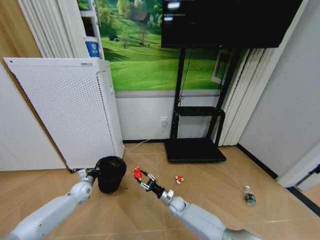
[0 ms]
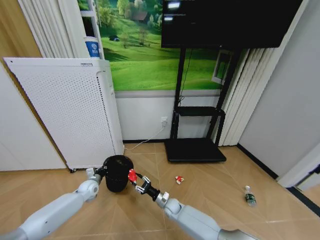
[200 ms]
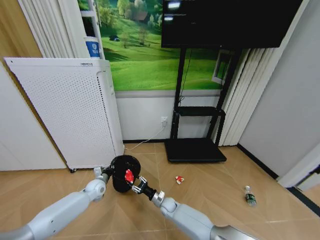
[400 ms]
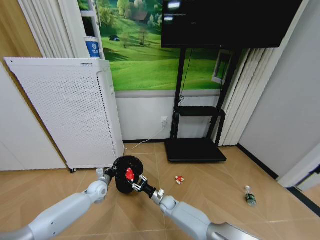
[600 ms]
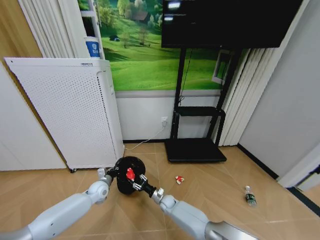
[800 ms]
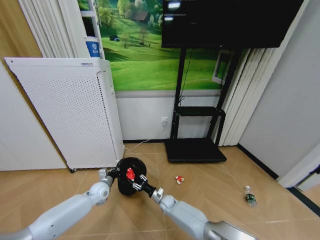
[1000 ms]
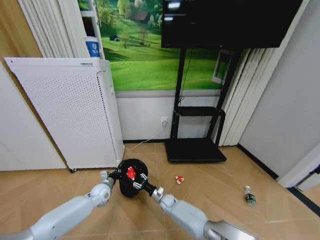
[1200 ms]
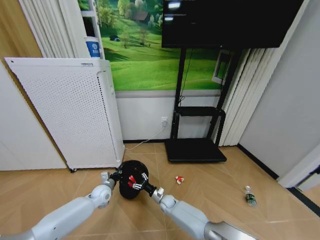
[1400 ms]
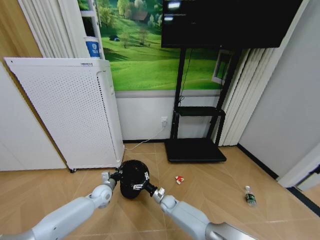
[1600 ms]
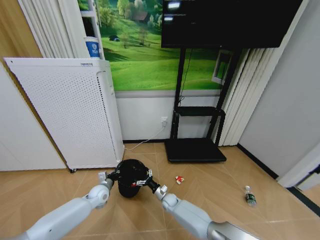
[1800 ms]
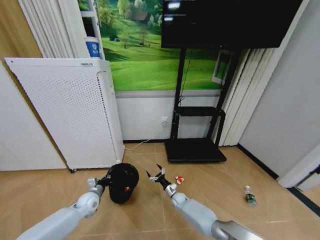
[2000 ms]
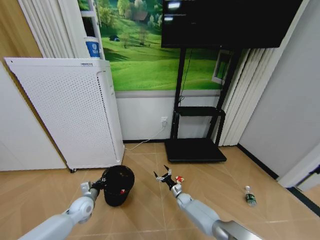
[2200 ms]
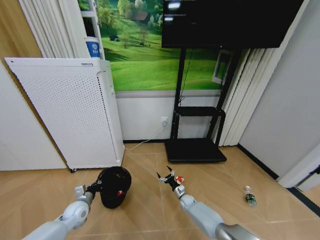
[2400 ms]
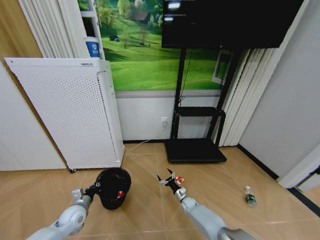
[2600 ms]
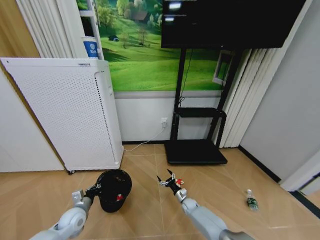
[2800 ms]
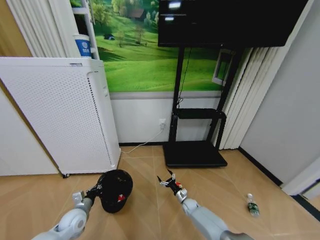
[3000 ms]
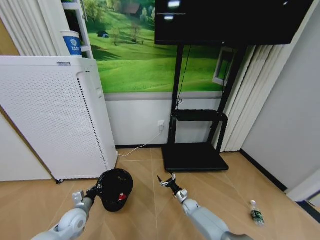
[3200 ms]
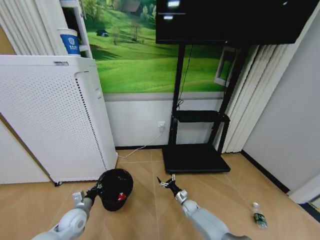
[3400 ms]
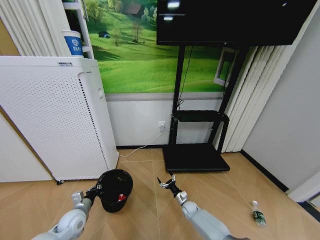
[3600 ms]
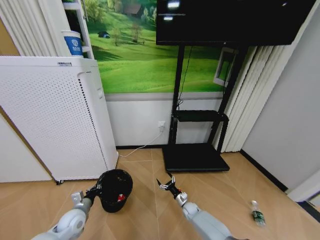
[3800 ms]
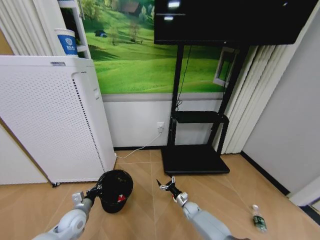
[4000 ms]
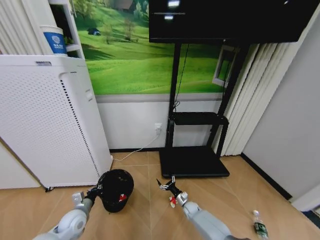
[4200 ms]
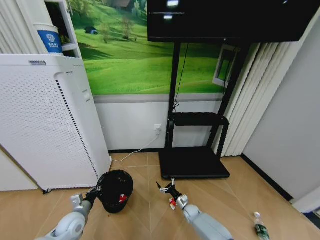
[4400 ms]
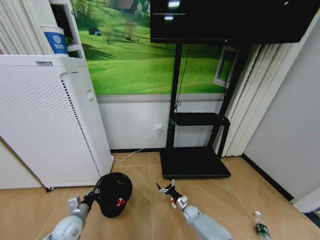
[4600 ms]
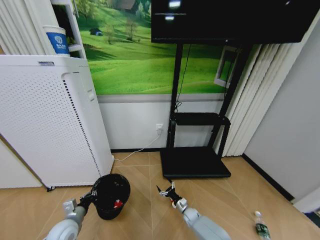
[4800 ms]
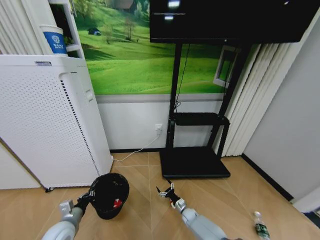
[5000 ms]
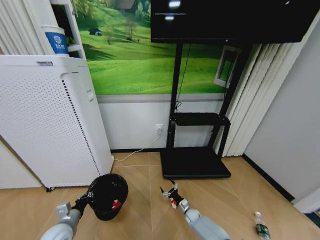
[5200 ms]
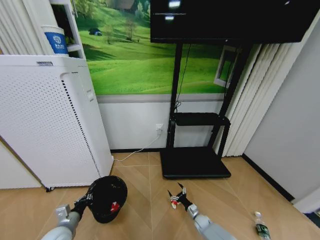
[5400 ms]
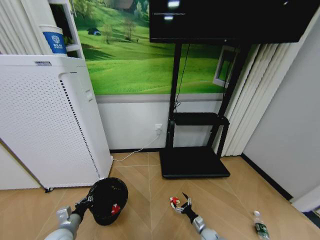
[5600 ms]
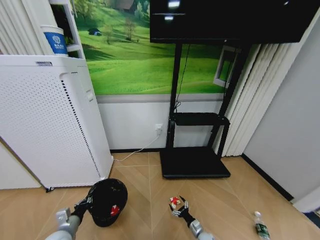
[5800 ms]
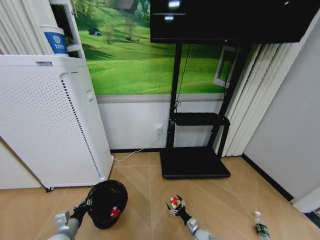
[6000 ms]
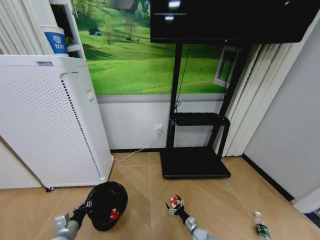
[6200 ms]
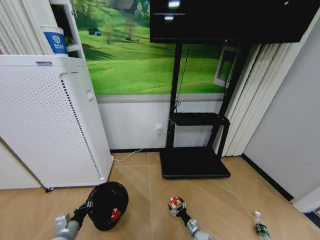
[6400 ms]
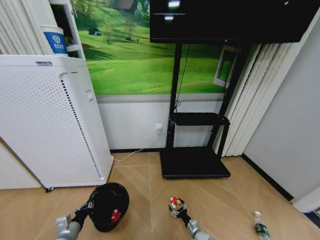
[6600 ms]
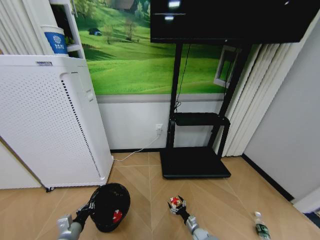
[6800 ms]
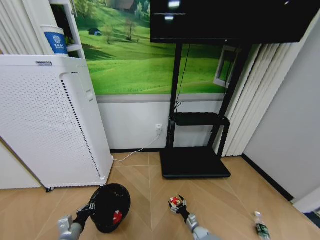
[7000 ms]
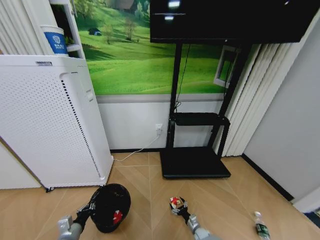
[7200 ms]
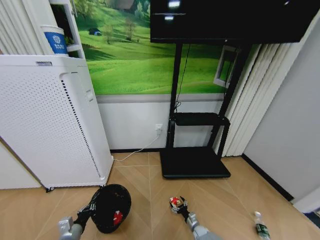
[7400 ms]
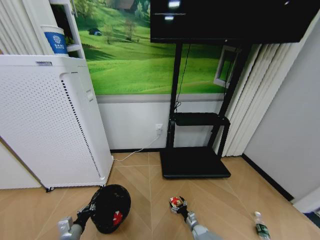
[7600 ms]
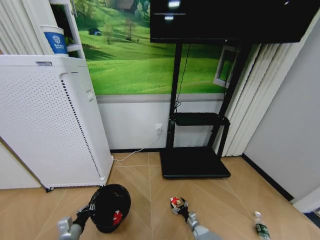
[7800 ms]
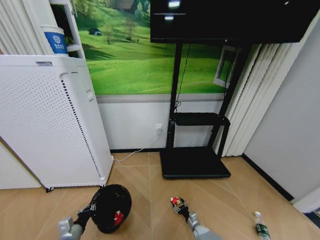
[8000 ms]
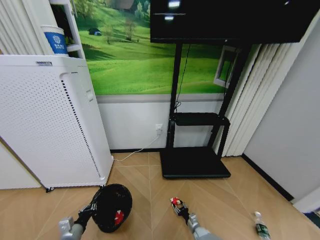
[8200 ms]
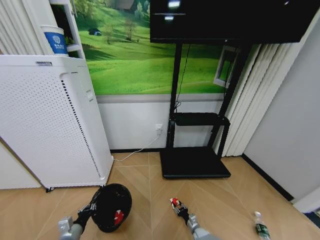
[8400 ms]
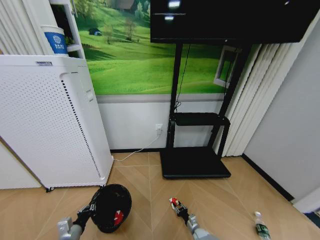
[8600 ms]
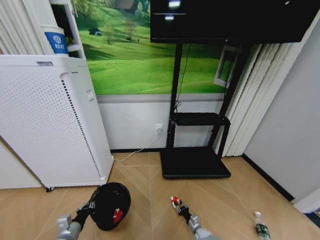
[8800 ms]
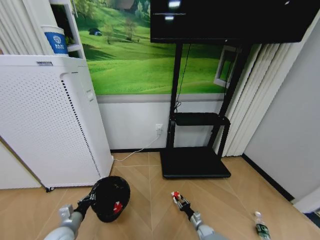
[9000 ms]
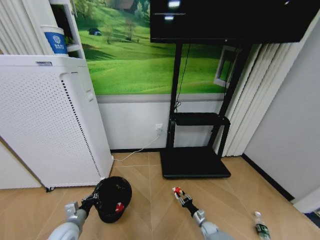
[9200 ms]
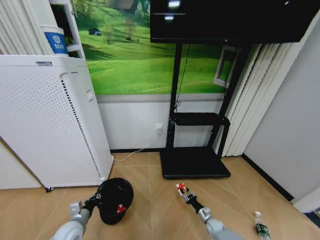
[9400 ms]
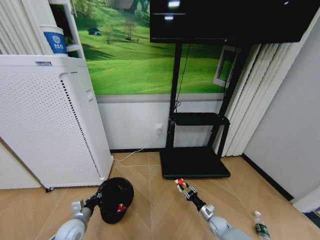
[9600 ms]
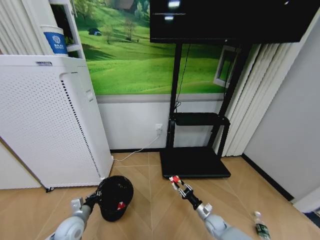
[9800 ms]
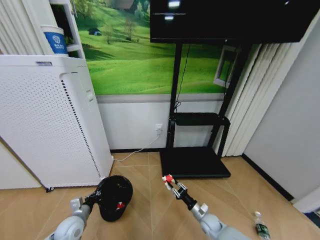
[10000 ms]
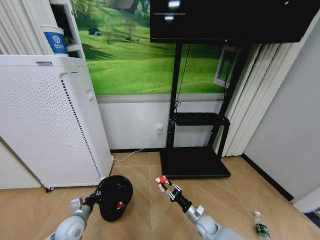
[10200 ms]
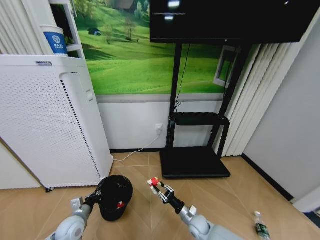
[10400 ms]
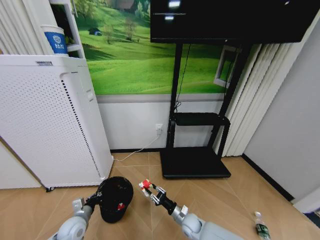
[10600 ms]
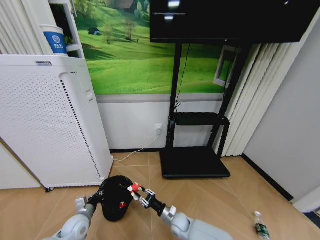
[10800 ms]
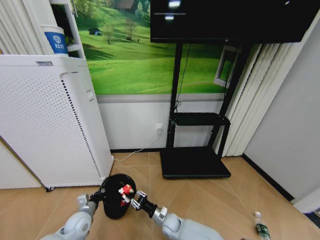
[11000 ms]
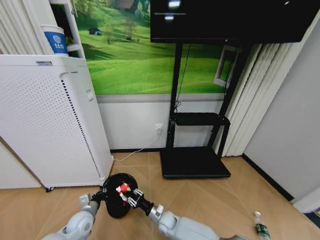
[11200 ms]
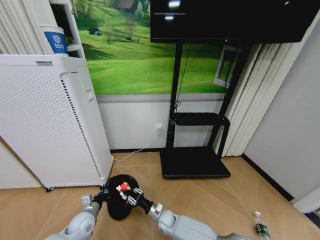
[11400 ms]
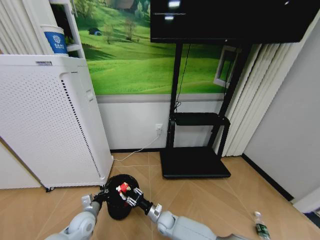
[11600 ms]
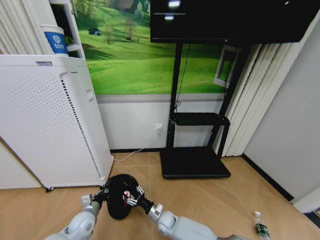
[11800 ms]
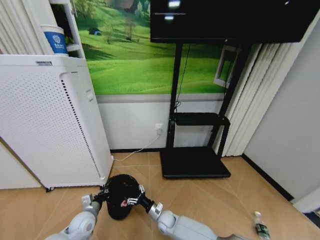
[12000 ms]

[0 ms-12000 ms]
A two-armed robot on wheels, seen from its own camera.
Task of the whole recording: Pick up the trash bin and place the garbage on the floor into it.
0 ms to 1600 ms: The left gripper shifts approximately 10 cm to the right; the right gripper changes place by approximately 5 cm, and opens up.
1600 ms to 3000 ms: The right gripper moves to the right, roughly 15 cm. Meanwhile the left gripper moves backward and to the left, about 15 cm.
4400 ms to 6000 ms: The left gripper is displaced backward by about 5 cm, while the right gripper heads backward, downward and to the right, covering approximately 15 cm.
6000 ms to 7600 ms: The grippers move only a little.
7600 ms to 9000 ms: The right gripper closes.
9000 ms to 10400 ms: The right gripper is displaced upward and to the left by approximately 20 cm.
10400 ms to 12000 ms: The right gripper travels to the left by about 15 cm, and opens its fingers.

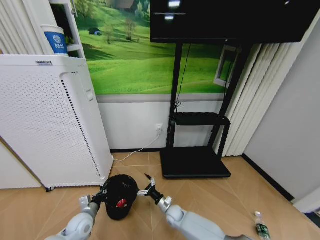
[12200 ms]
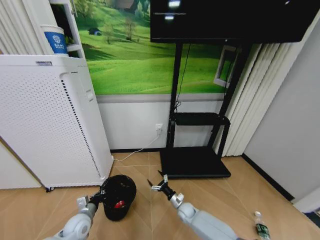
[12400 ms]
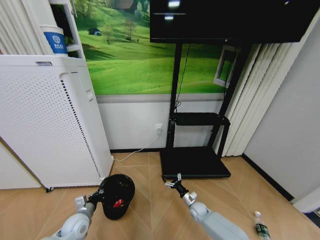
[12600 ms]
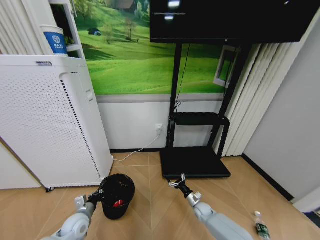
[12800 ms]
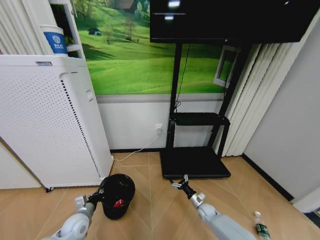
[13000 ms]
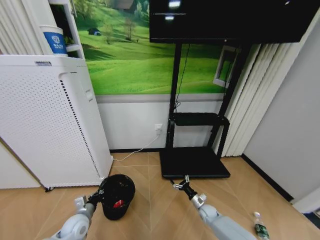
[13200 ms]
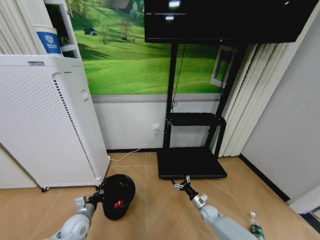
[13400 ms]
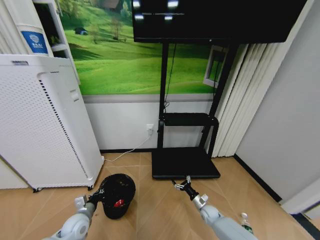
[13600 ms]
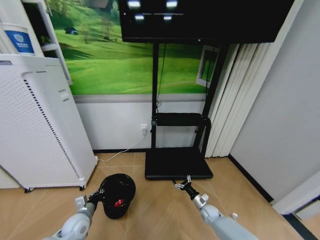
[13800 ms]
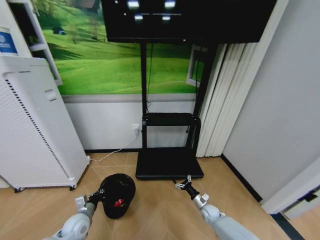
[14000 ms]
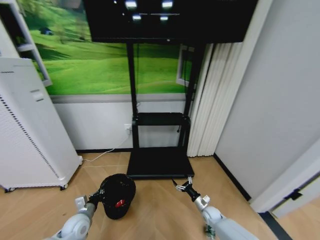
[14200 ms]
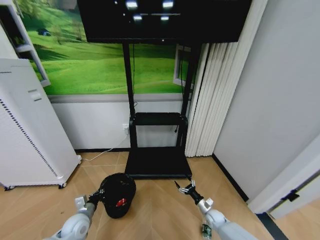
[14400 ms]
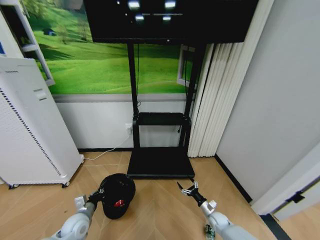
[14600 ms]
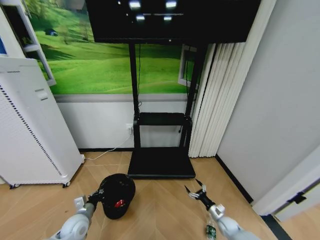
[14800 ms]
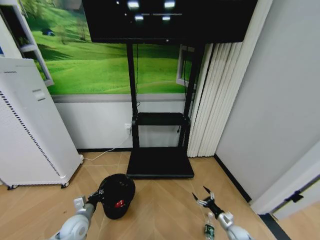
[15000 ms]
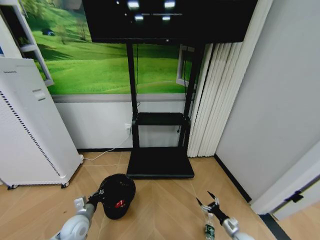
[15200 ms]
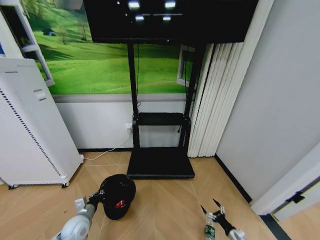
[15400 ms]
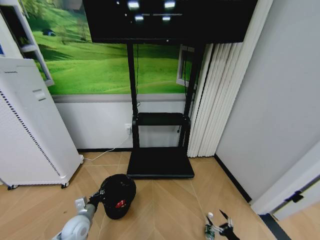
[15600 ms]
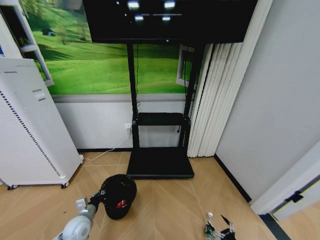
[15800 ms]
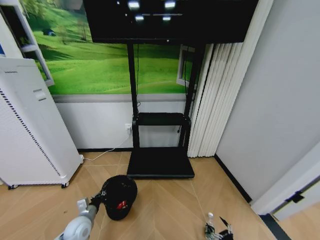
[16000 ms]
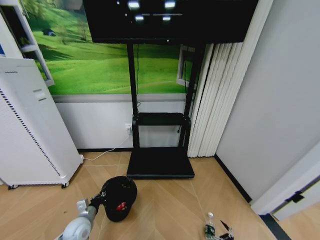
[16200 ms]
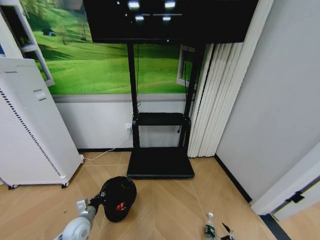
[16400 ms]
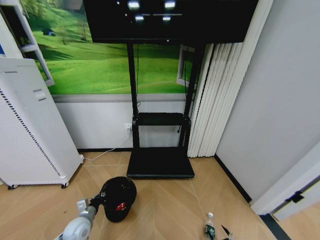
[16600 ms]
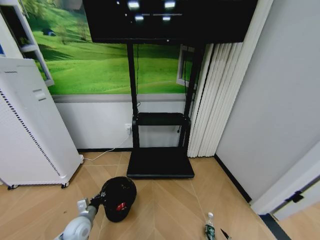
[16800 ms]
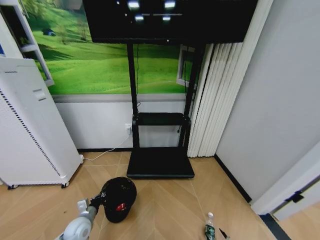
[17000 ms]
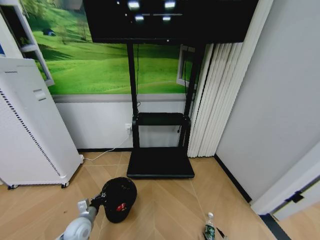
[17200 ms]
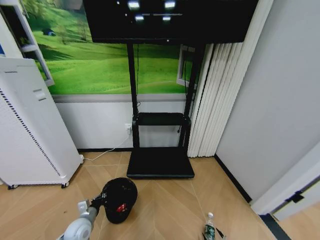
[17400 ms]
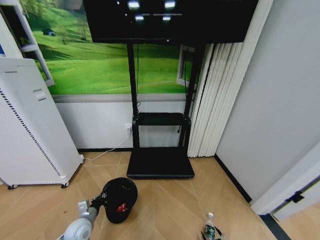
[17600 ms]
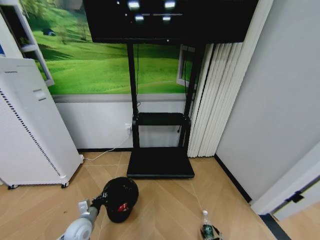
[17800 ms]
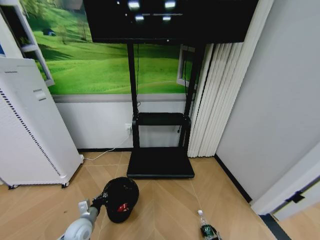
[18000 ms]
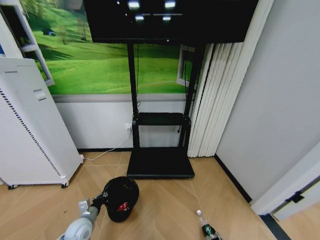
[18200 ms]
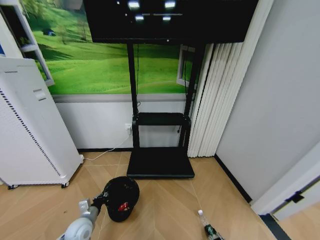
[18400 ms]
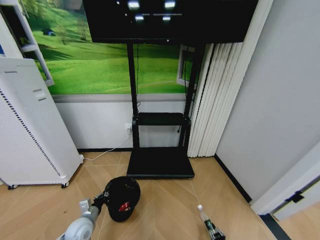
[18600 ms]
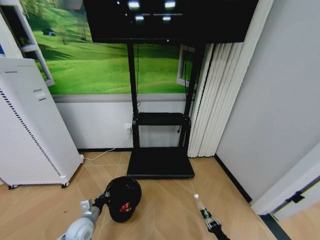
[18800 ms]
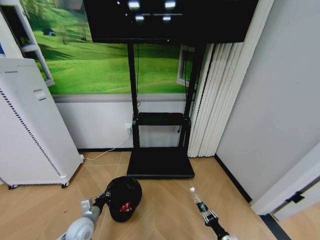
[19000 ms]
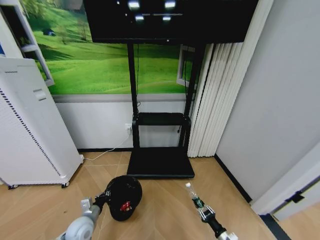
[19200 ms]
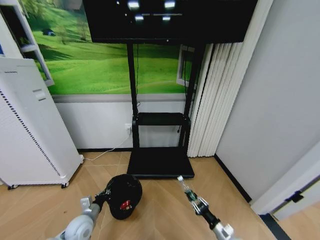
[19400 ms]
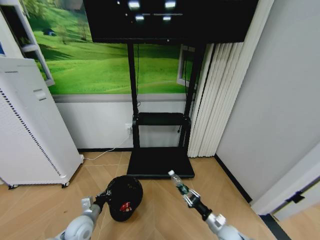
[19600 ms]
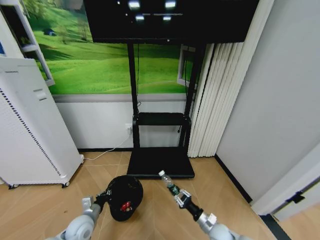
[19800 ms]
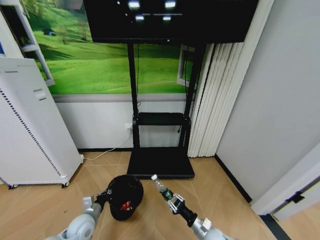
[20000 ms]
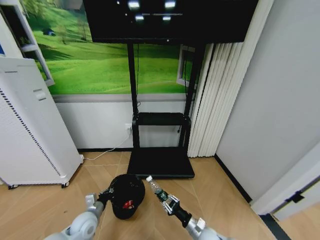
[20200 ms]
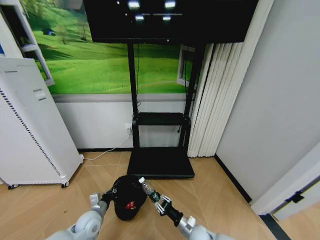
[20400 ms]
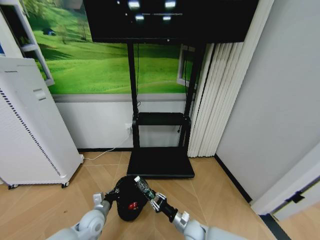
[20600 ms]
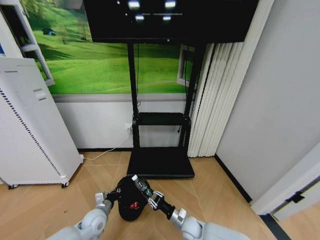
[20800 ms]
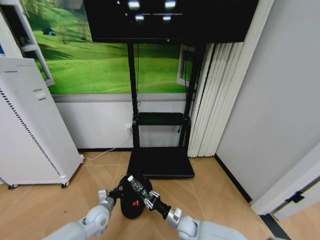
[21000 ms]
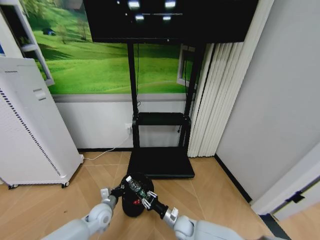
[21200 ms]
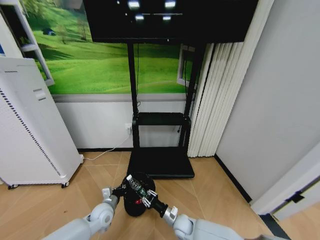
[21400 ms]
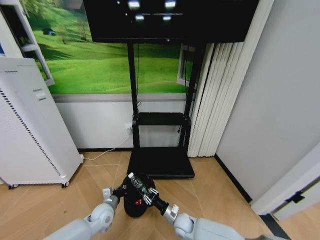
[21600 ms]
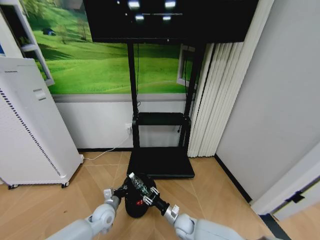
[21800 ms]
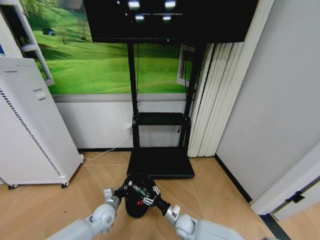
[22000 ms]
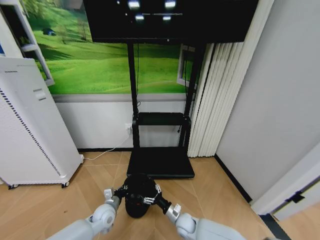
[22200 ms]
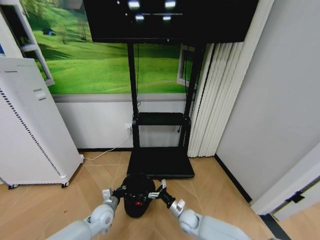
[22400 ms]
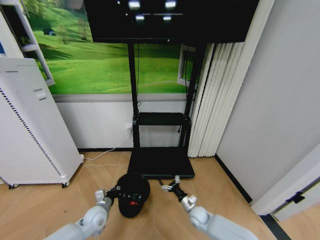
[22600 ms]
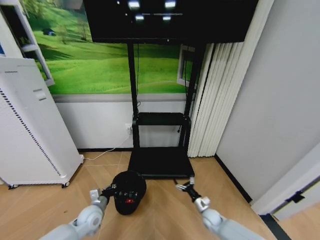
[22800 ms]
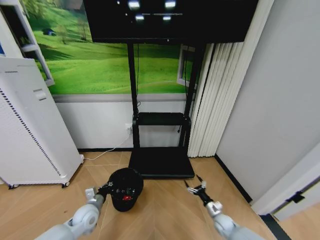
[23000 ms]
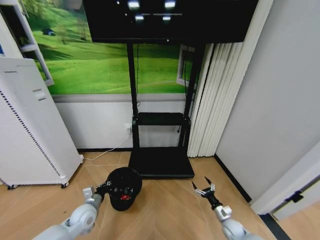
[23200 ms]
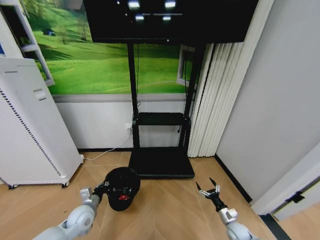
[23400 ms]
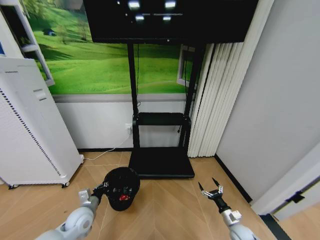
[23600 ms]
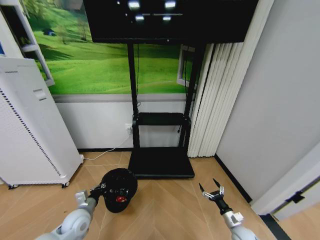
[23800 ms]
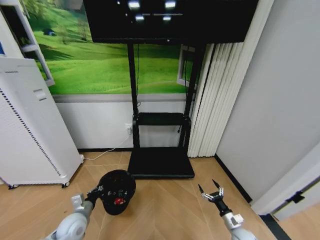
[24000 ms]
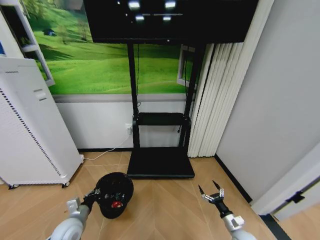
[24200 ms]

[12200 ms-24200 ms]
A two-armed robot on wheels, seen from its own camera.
Task of the whole recording: Pick up the trash bin and place the garbage on the floor into it.
12200 ms to 13800 ms: The right gripper shifts roughly 20 cm to the right.
13800 ms to 15200 ms: The right gripper is displaced to the right and backward by some 20 cm.
15200 ms to 16600 ms: The right gripper is displaced backward by about 15 cm.
16600 ms to 18200 ms: The right gripper moves about 5 cm, and closes.
18200 ms to 19800 ms: The right gripper shifts about 30 cm upward, forward and to the left, and closes its fingers.
19800 ms to 21200 ms: The left gripper travels to the right and forward by about 10 cm. The right gripper travels to the left by about 15 cm.
21200 ms to 22600 ms: The right gripper moves approximately 5 cm, and opens its fingers.
22600 ms to 24200 ms: The left gripper shifts approximately 10 cm to the left and backward, while the right gripper travels to the right by roughly 25 cm.
